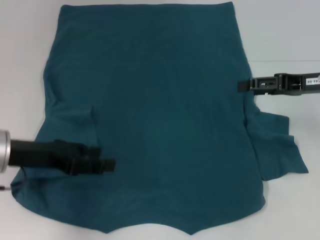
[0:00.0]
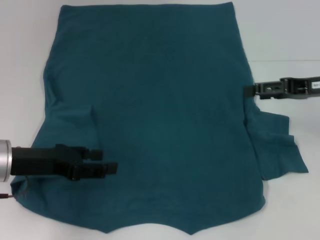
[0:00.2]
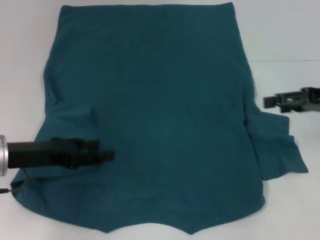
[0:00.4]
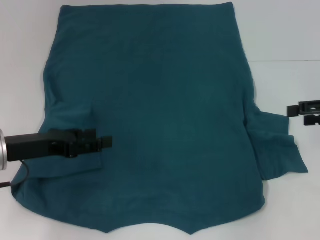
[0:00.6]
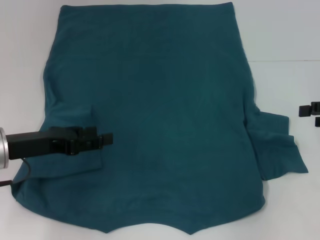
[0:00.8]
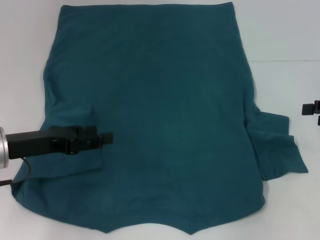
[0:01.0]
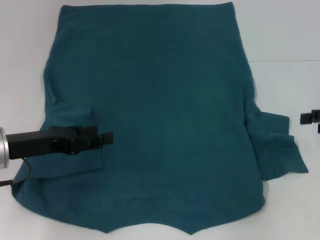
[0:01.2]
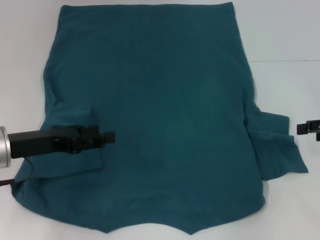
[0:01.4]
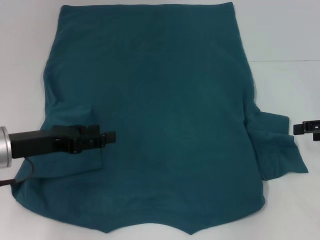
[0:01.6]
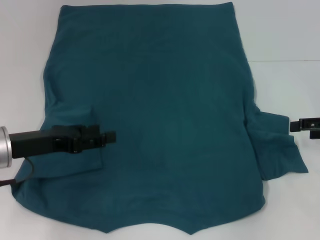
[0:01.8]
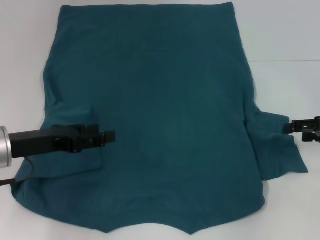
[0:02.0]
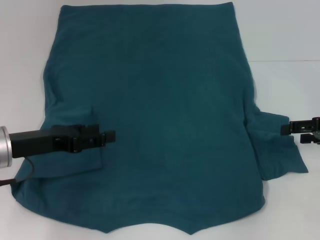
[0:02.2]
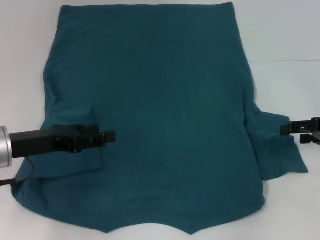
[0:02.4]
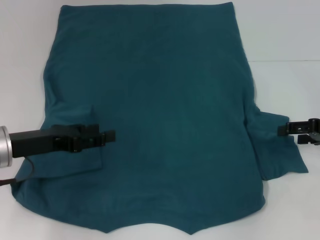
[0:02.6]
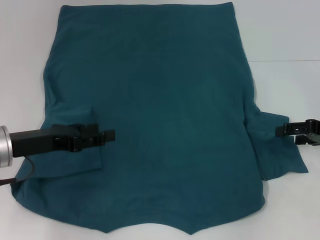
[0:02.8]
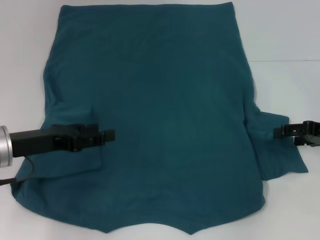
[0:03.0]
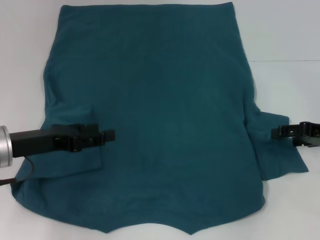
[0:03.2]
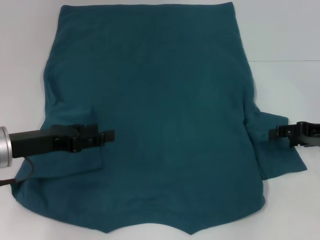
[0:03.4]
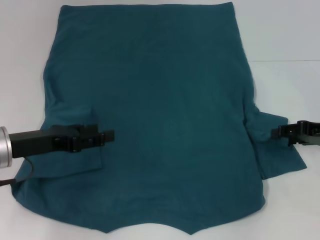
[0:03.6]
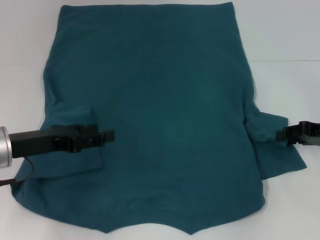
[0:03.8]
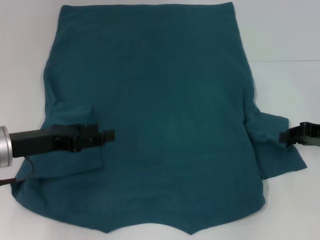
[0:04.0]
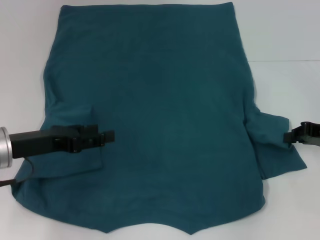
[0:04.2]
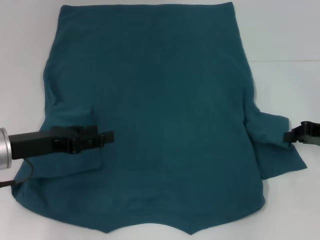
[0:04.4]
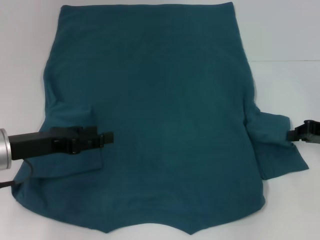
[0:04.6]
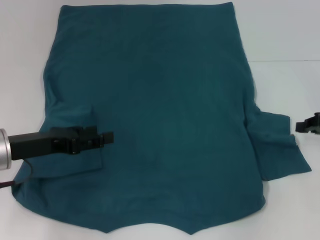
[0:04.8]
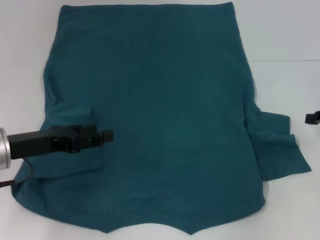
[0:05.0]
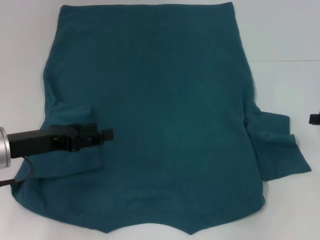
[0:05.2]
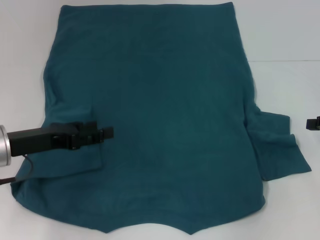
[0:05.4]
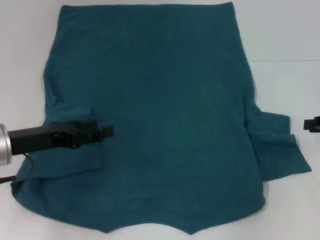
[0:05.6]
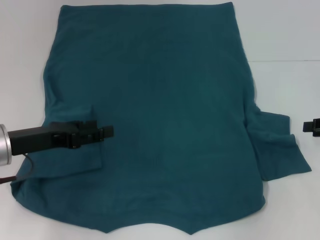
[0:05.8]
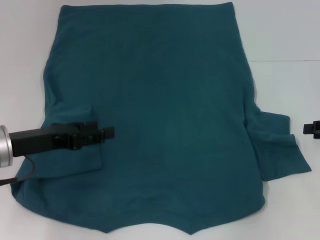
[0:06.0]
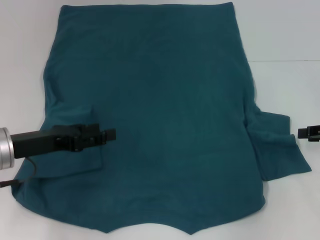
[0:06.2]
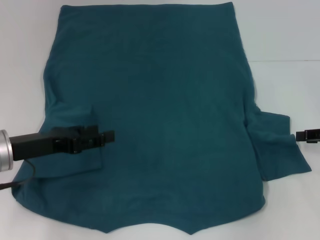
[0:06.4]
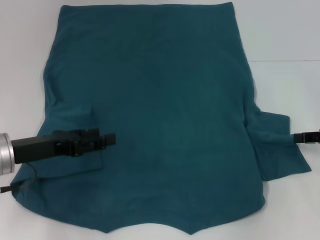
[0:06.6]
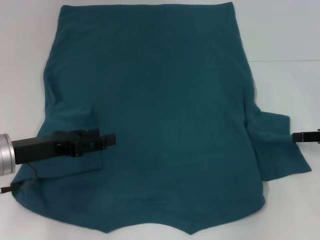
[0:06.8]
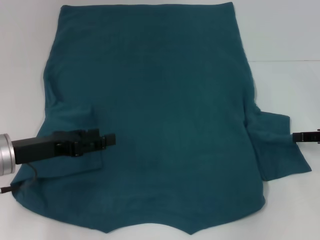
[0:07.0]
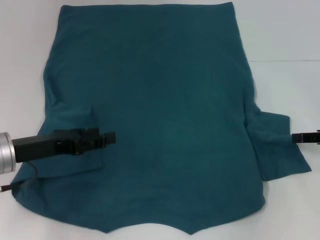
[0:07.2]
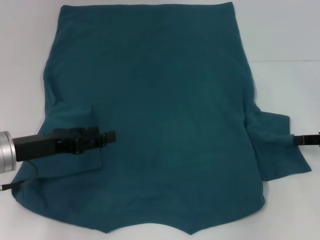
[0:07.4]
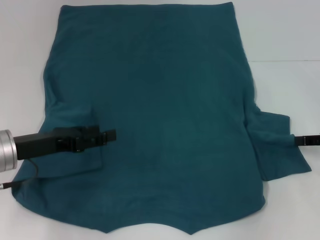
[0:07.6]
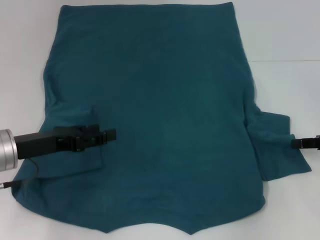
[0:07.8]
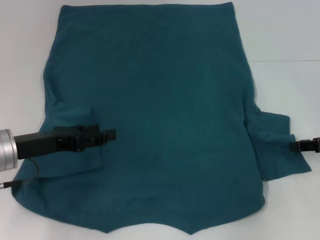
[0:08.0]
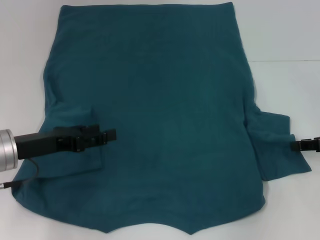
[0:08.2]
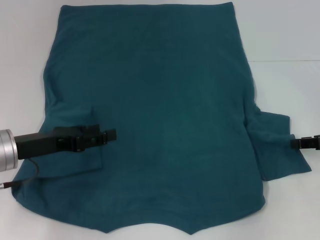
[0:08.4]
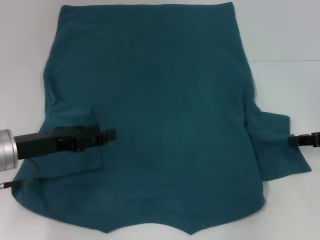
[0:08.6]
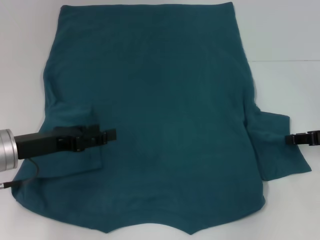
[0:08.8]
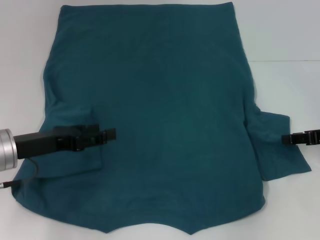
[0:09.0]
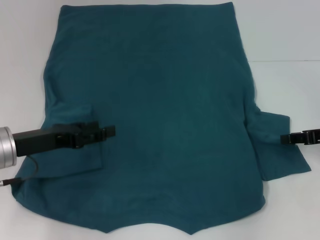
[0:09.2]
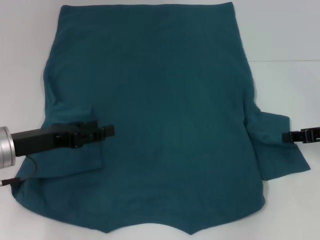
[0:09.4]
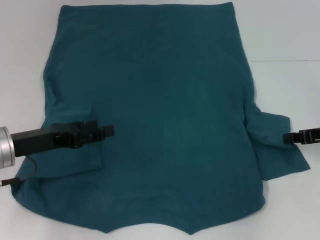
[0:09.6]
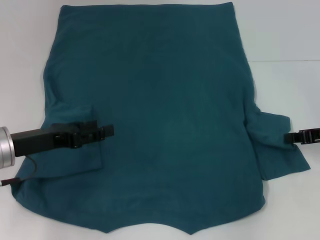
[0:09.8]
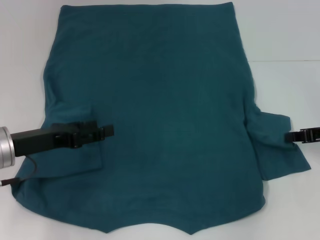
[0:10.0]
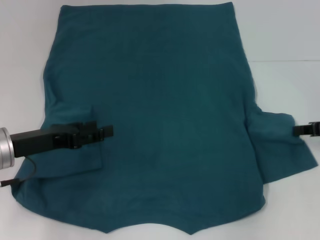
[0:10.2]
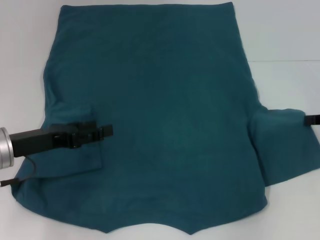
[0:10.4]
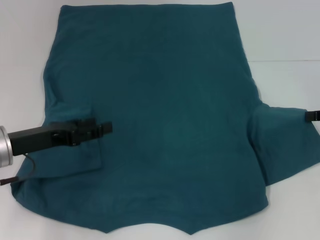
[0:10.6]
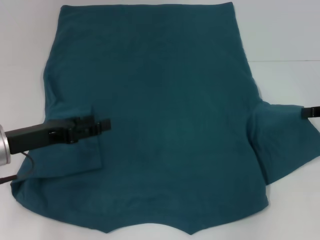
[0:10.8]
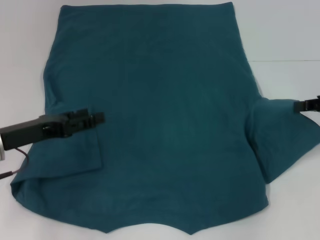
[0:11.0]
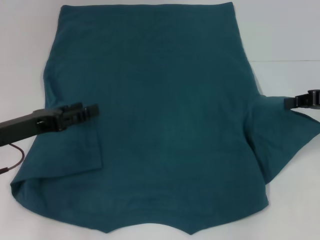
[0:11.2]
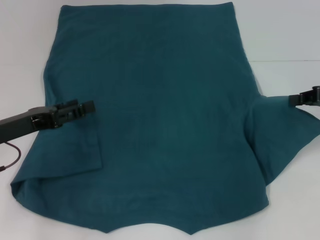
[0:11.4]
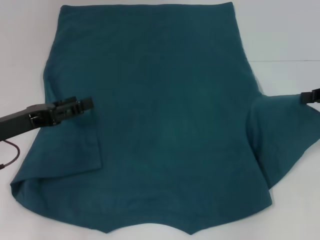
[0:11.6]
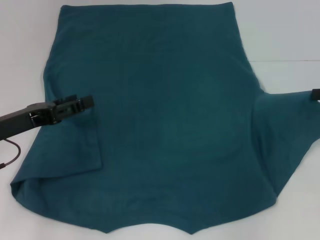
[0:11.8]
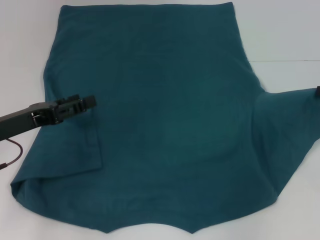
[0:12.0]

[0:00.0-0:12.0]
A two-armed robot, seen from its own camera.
0:00.0 to 0:01.6: The right gripper goes approximately 10 cm to the right.
0:01.6 to 0:03.0: There are only small adjustments of the grippers.
0:03.0 to 0:04.4: The right gripper closes its fingers.
0:04.4 to 0:06.0: The right gripper opens.
0:06.0 to 0:07.6: There are only small adjustments of the grippers.
0:09.0 to 0:10.4: The right gripper closes.
0:10.4 to 0:12.0: There are only small adjustments of the grippers.

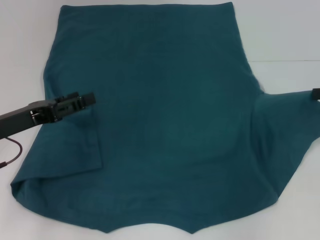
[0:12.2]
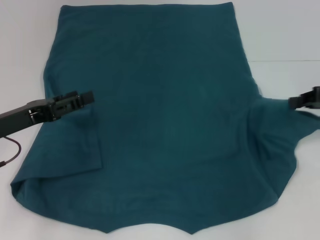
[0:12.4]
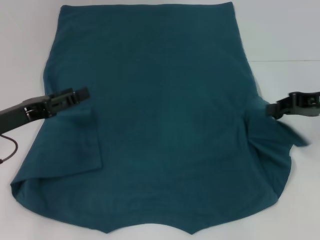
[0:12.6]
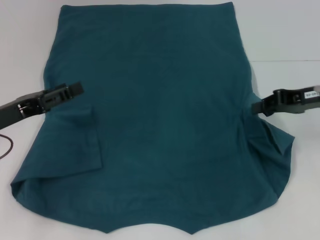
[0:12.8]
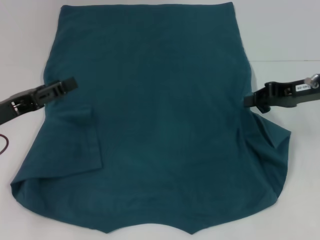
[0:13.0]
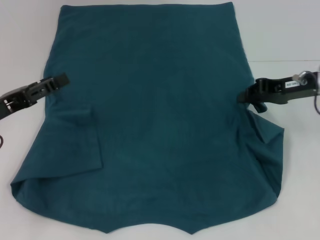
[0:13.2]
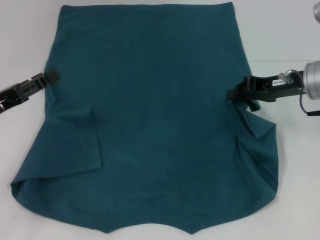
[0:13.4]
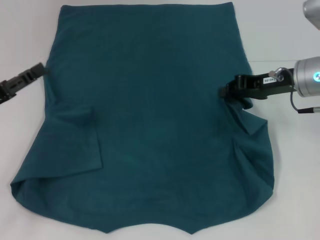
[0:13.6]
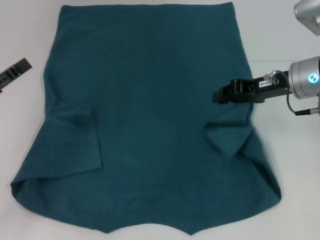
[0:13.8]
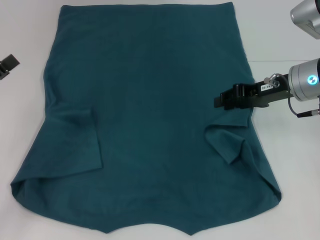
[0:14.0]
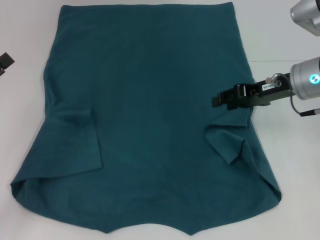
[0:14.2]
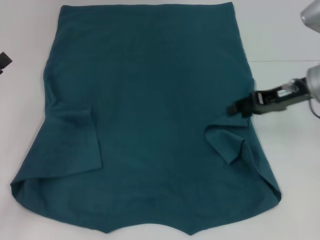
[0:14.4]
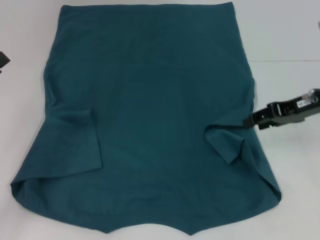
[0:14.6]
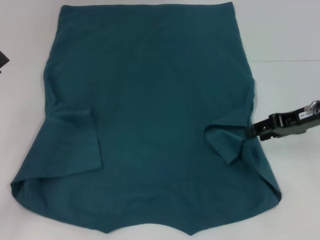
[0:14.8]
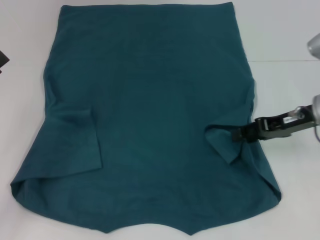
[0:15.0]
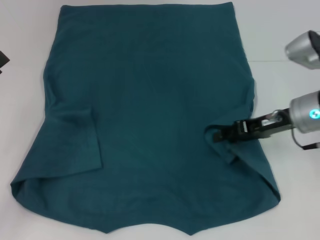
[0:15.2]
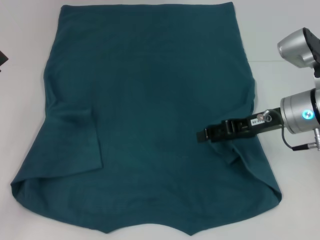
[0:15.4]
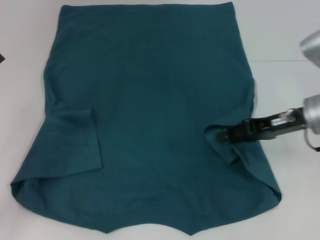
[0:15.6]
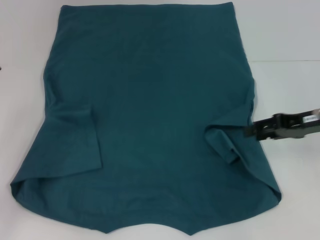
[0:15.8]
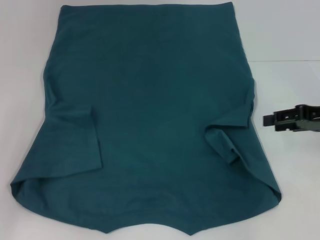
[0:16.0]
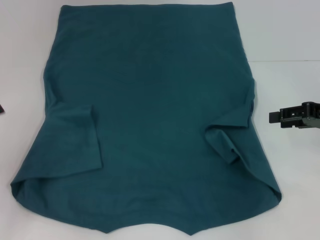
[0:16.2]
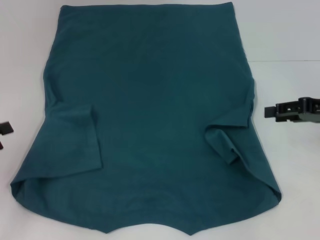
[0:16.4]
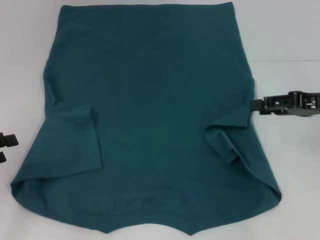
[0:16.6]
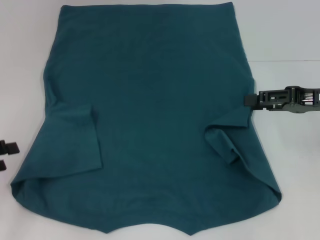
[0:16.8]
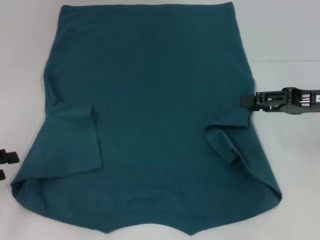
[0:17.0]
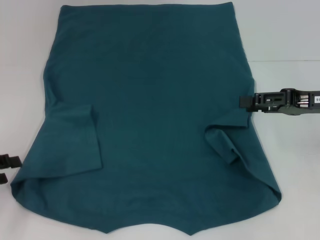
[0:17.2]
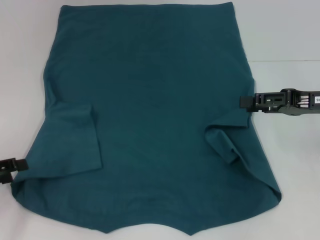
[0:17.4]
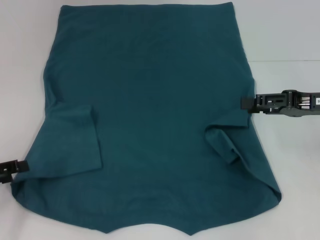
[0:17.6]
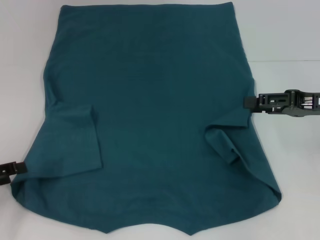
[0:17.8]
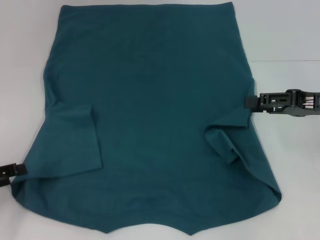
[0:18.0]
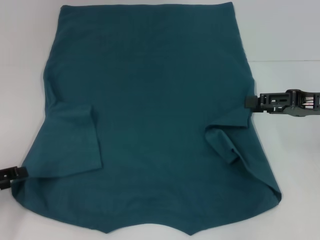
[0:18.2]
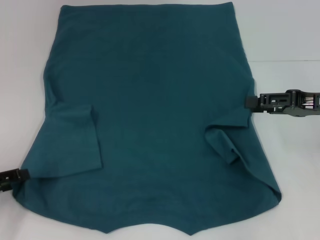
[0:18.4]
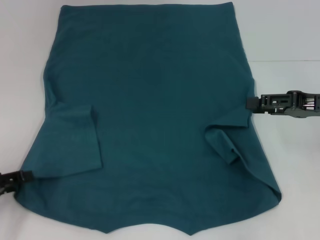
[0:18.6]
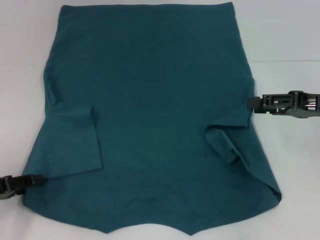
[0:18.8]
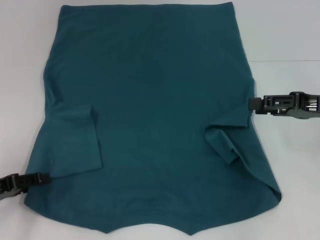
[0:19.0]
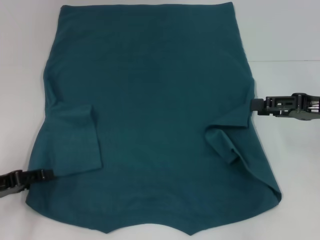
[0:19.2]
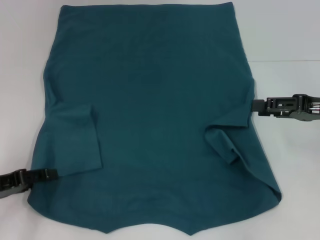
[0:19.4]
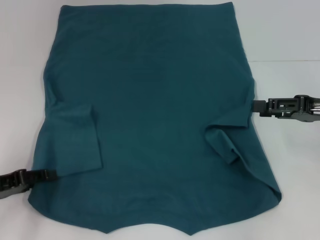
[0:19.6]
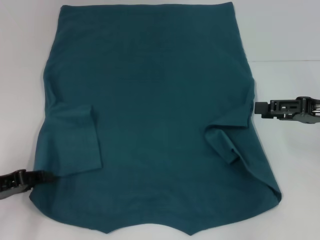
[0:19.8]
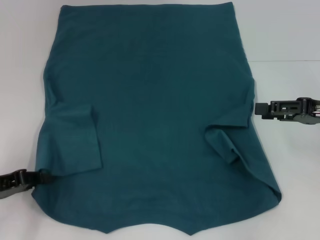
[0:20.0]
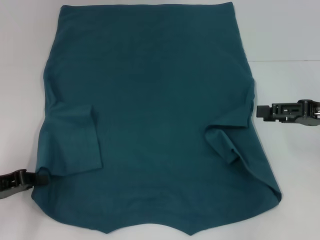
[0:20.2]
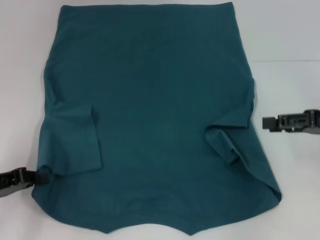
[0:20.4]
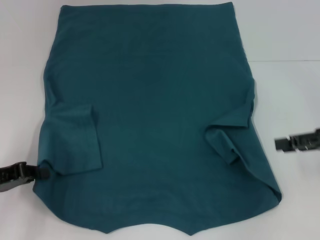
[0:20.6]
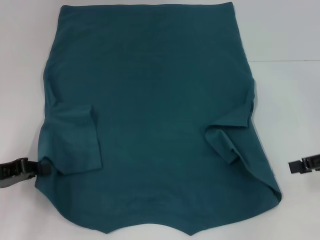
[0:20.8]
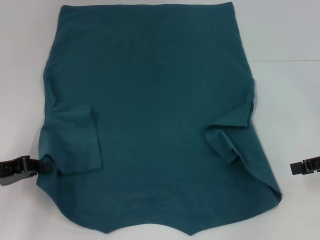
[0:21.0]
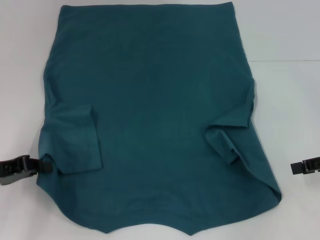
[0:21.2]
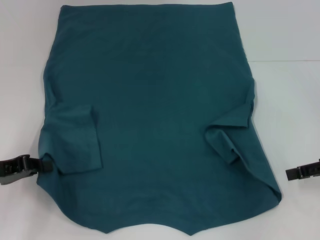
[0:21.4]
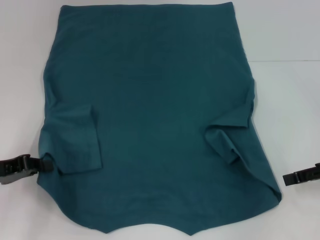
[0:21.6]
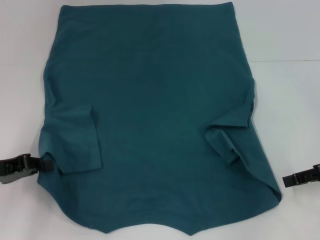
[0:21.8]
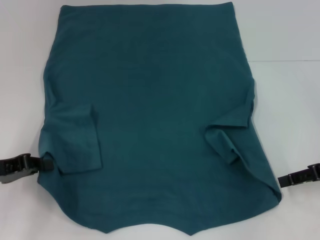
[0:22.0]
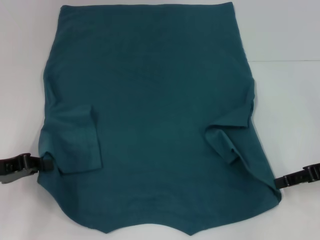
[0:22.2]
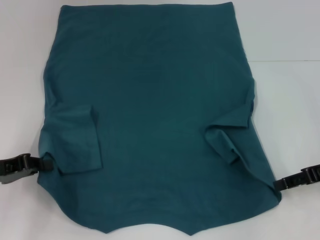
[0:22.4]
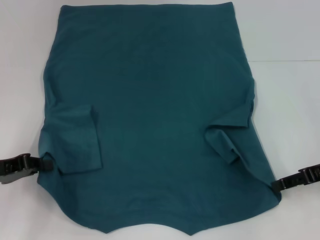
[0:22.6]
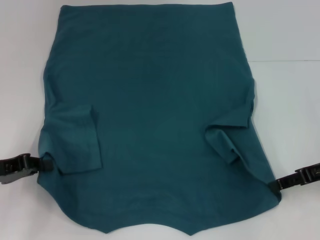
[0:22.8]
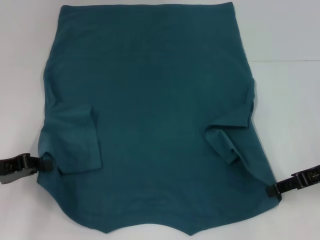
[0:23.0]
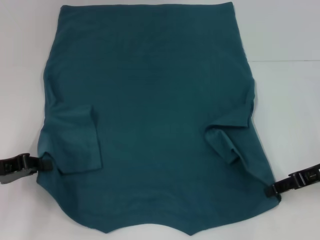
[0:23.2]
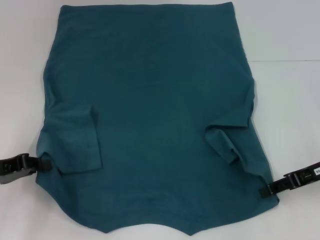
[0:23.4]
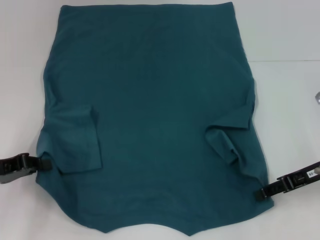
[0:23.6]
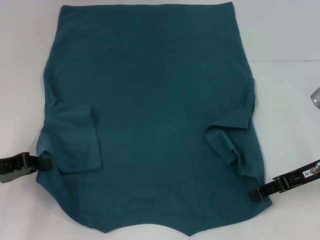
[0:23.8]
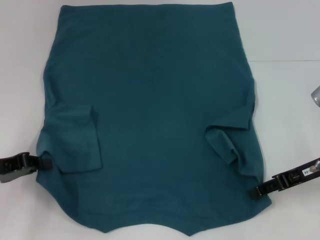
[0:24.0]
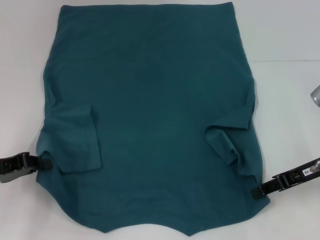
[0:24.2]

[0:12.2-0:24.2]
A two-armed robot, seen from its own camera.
Step, 0:12.2 to 0:17.4: Fold the bottom right sleeve to the right.
Step, 0:17.6 to 0:19.6: Grab the bottom left corner with your left hand.
0:12.2 to 0:13.8: The left gripper goes about 5 cm to the left. Meanwhile the right gripper is displaced to the left by approximately 15 cm.
0:13.8 to 0:15.2: The right gripper opens its fingers.
0:15.2 to 0:16.6: The right gripper goes about 10 cm to the right.
0:16.6 to 0:18.2: The grippers make only small movements.
0:18.2 to 0:19.8: The grippers move only a little.
0:19.8 to 0:21.2: The left gripper closes up.
0:21.2 to 0:22.6: The grippers move only a little.
0:22.6 to 0:24.2: The grippers move only a little.
